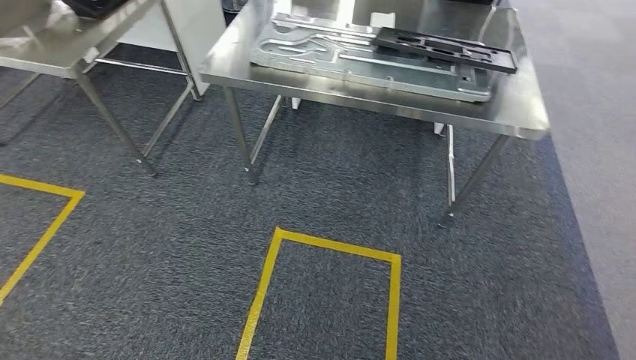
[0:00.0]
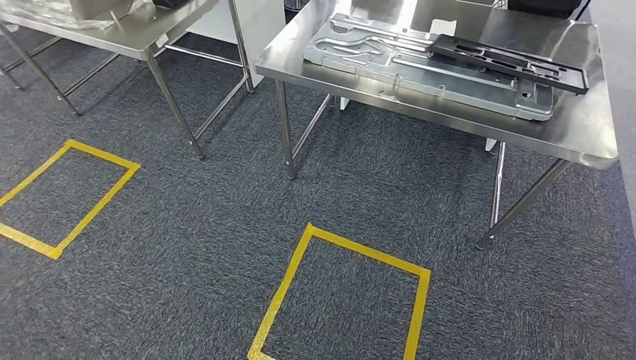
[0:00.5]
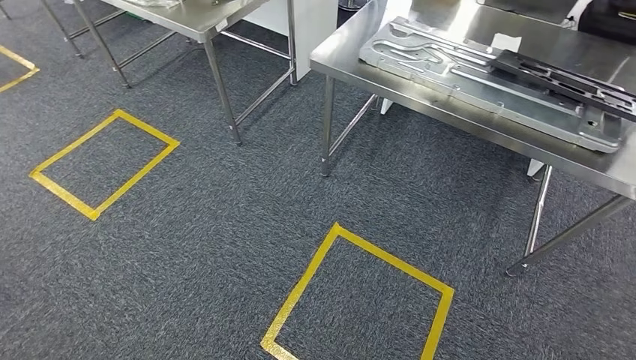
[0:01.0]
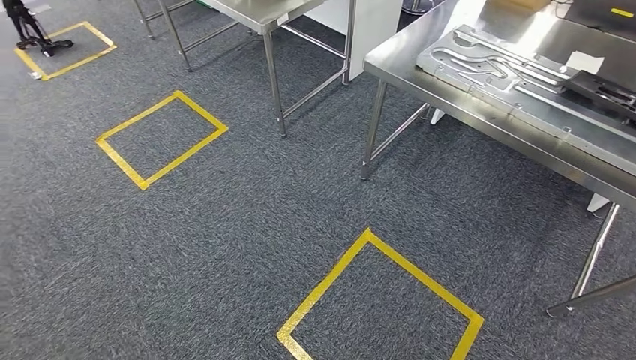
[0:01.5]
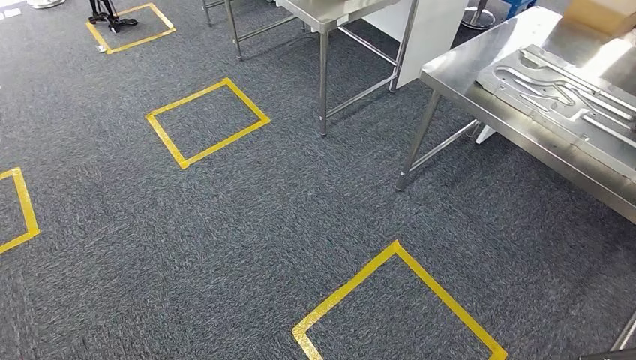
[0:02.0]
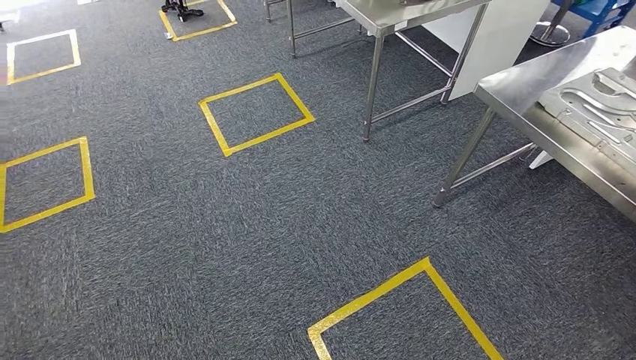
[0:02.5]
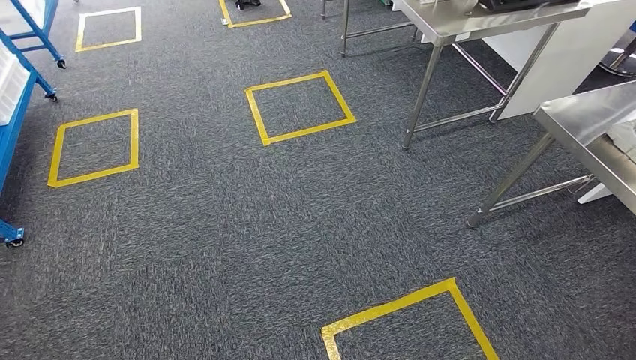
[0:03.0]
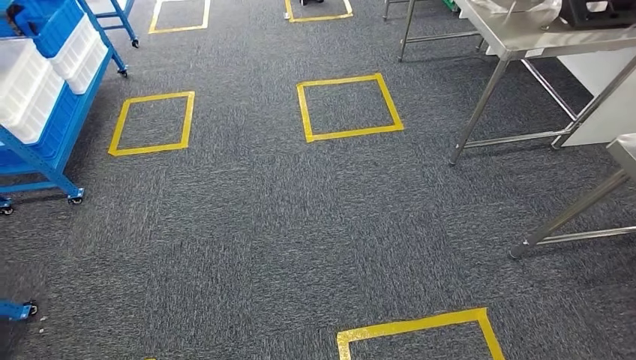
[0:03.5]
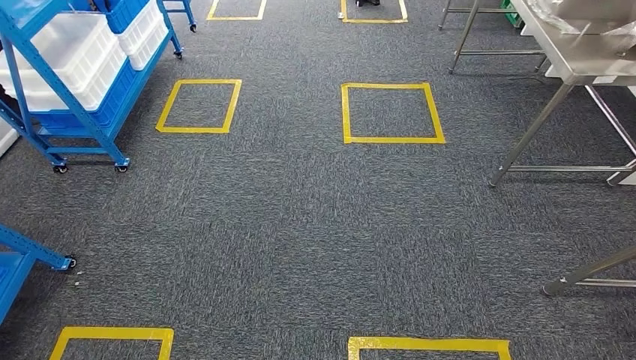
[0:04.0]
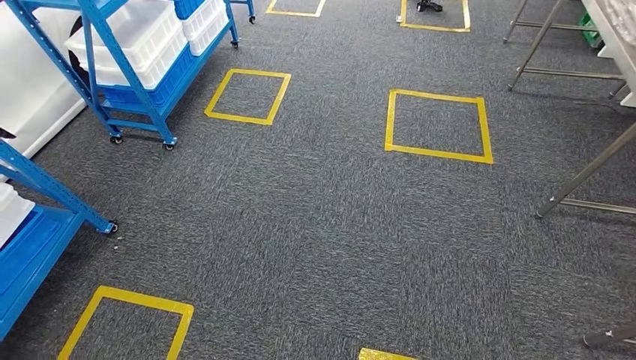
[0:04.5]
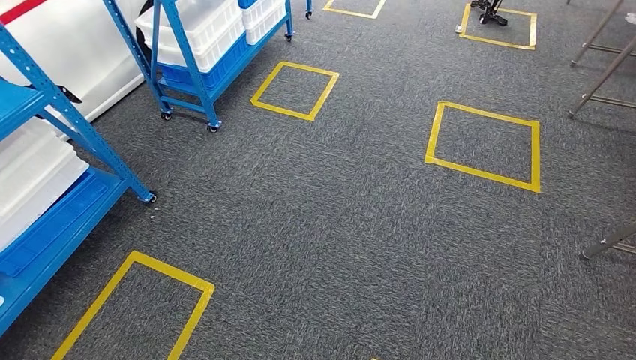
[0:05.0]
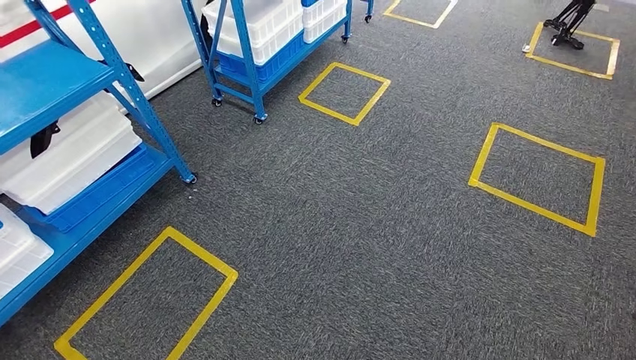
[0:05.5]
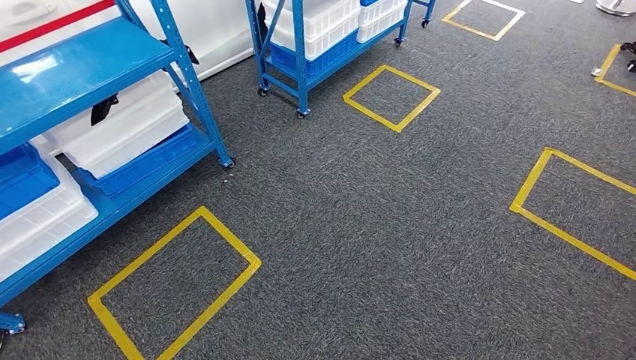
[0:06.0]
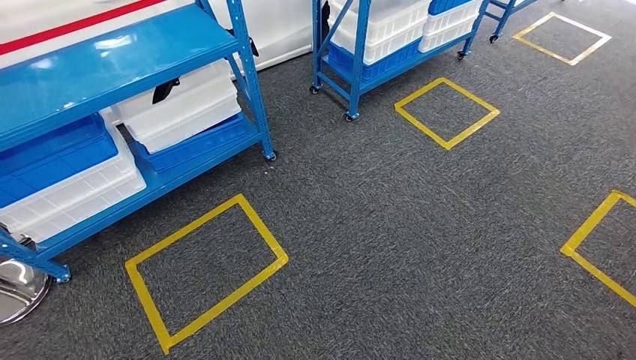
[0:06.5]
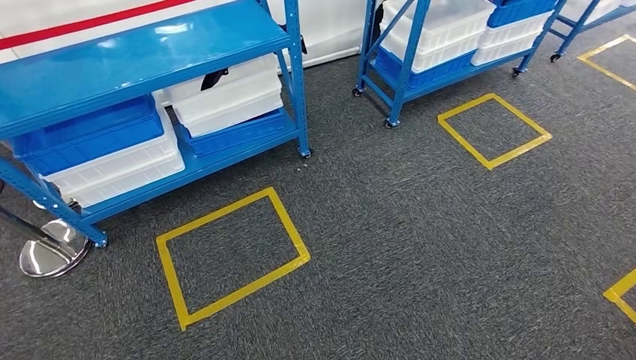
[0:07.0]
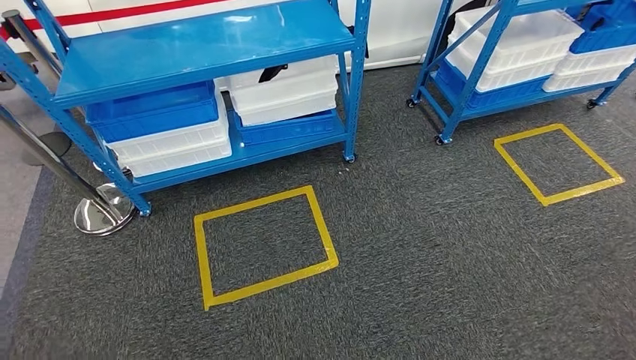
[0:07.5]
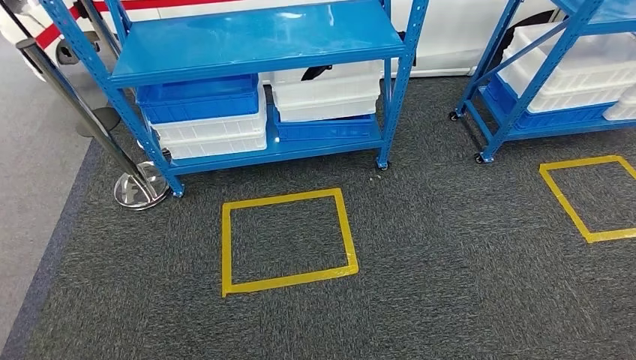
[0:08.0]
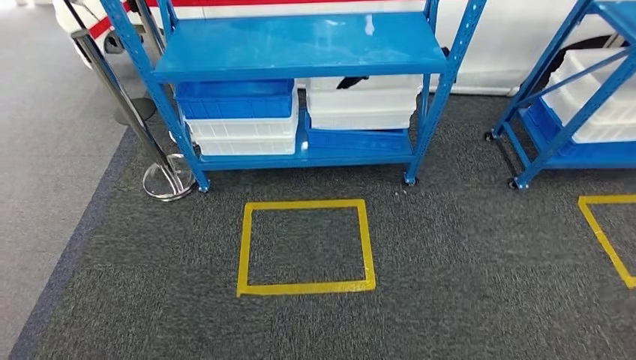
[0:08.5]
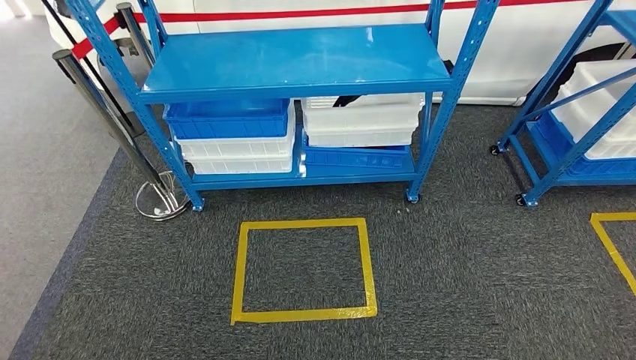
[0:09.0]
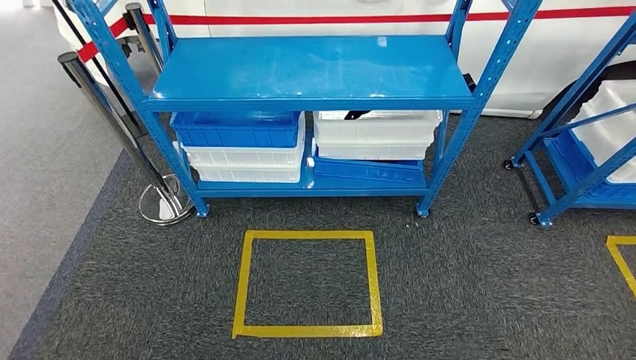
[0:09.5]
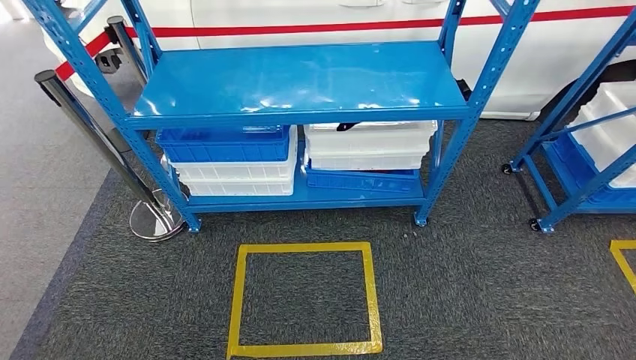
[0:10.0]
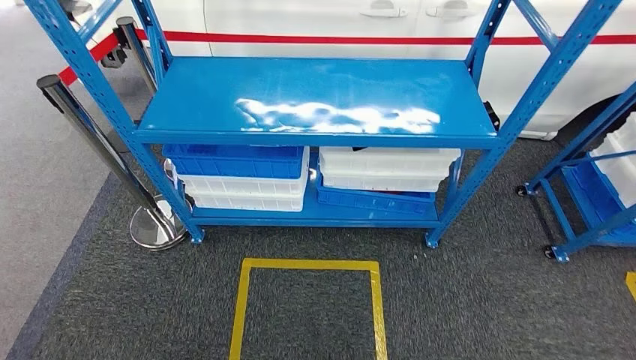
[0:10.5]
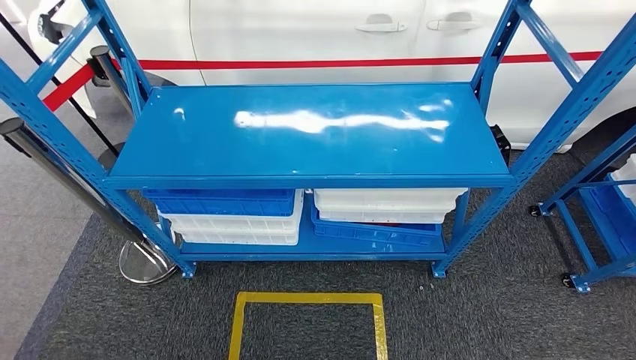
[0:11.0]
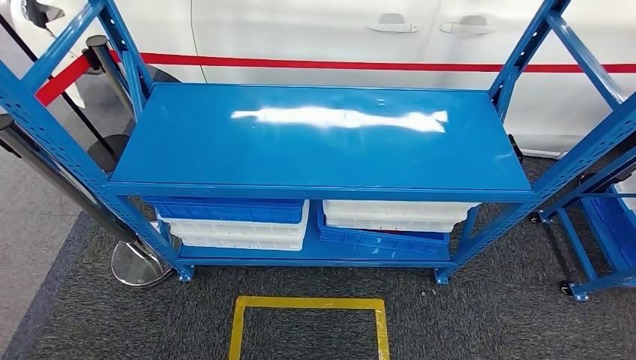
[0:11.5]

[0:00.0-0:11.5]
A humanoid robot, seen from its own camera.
Step, 0:01.5 to 0:11.5: Move to the initial position of the shelf.
